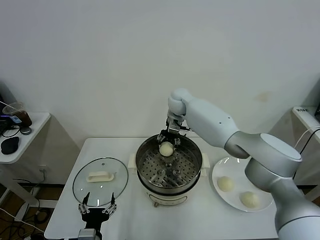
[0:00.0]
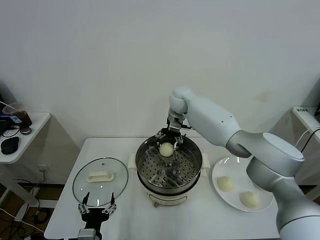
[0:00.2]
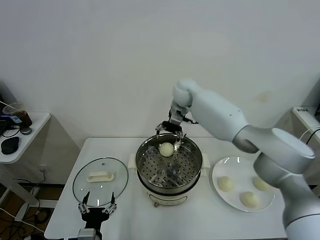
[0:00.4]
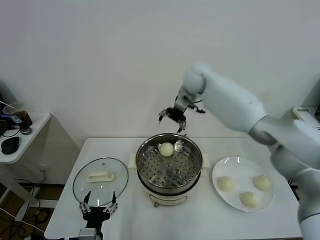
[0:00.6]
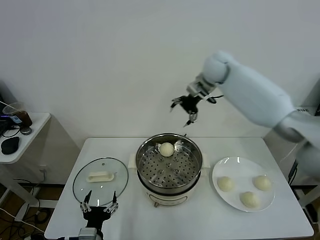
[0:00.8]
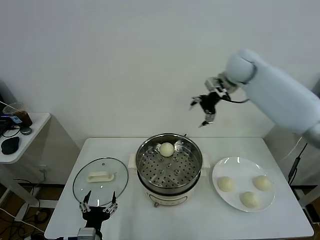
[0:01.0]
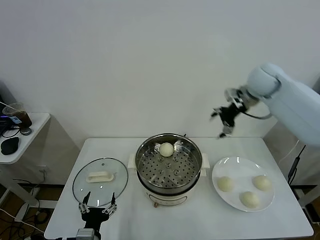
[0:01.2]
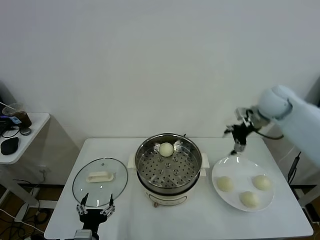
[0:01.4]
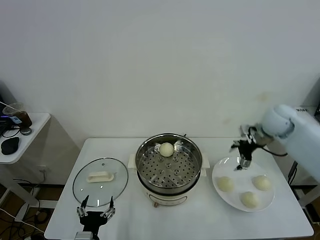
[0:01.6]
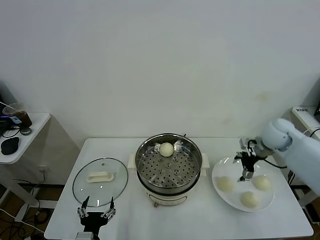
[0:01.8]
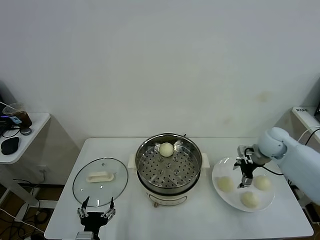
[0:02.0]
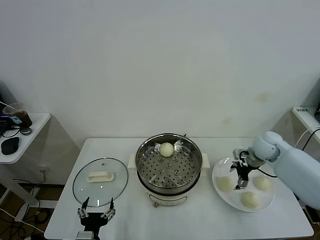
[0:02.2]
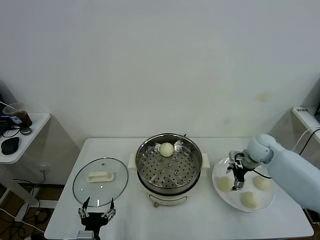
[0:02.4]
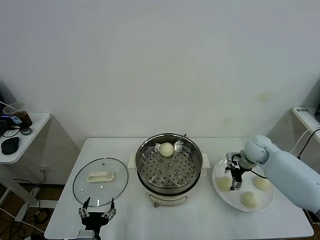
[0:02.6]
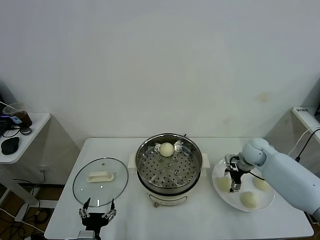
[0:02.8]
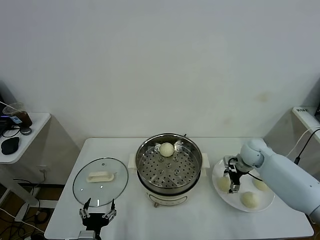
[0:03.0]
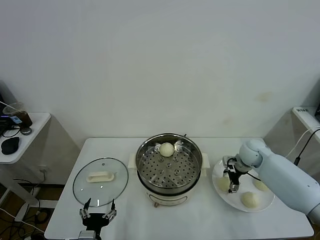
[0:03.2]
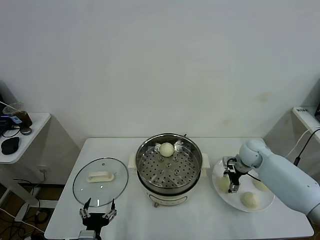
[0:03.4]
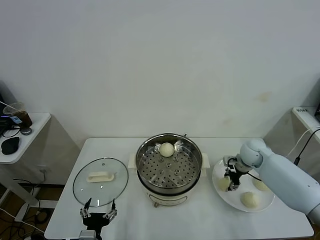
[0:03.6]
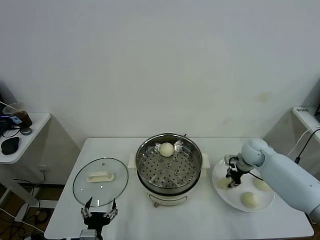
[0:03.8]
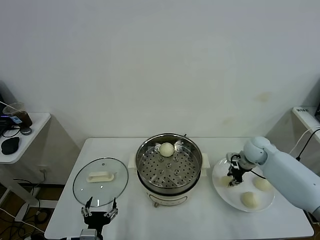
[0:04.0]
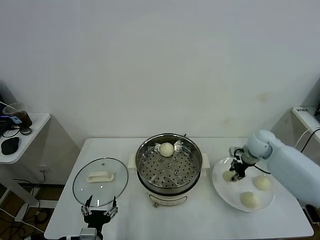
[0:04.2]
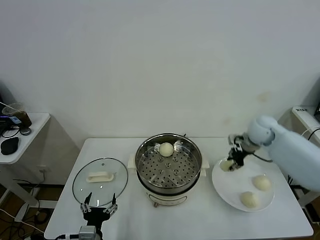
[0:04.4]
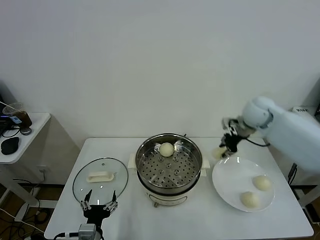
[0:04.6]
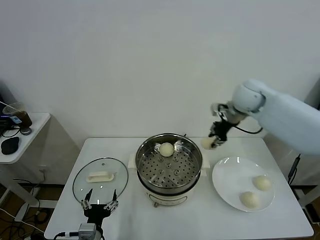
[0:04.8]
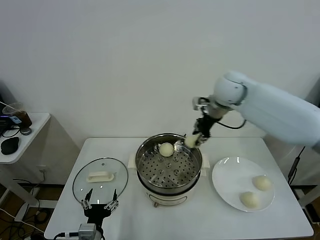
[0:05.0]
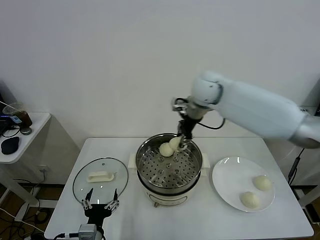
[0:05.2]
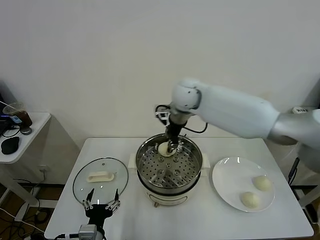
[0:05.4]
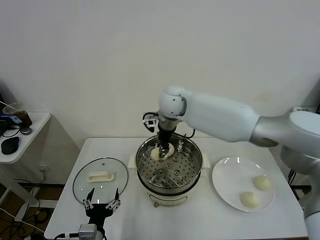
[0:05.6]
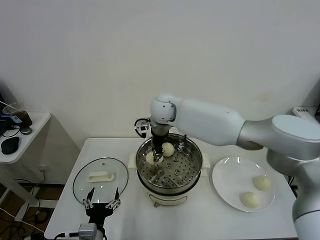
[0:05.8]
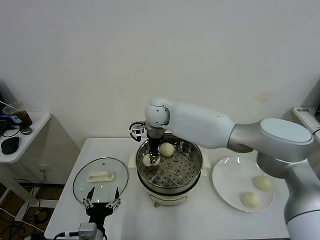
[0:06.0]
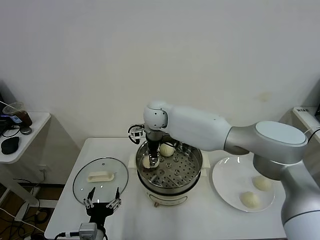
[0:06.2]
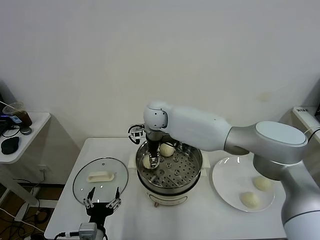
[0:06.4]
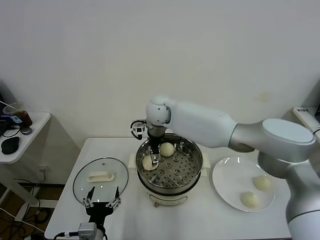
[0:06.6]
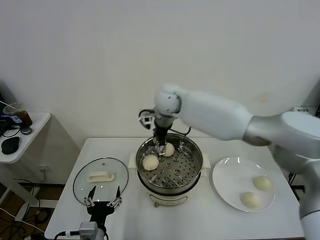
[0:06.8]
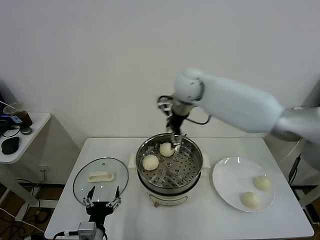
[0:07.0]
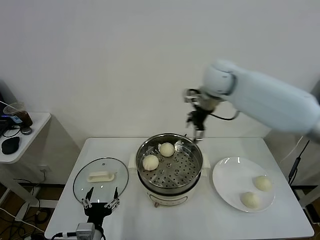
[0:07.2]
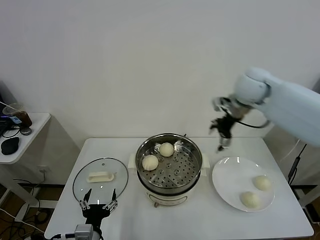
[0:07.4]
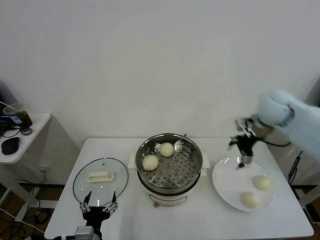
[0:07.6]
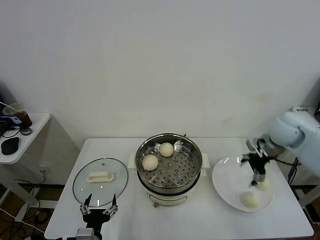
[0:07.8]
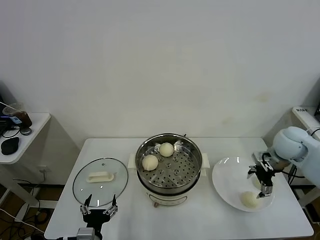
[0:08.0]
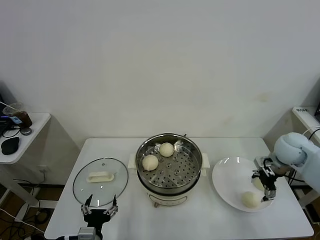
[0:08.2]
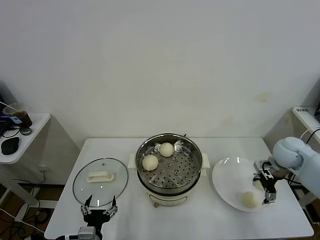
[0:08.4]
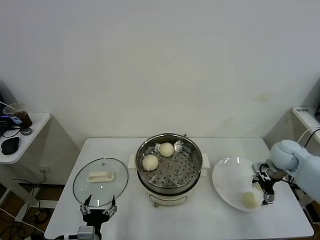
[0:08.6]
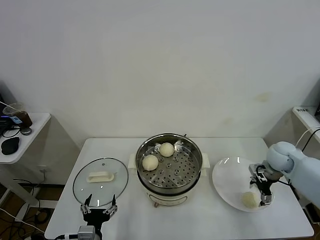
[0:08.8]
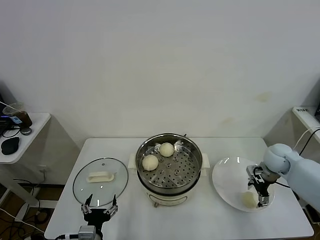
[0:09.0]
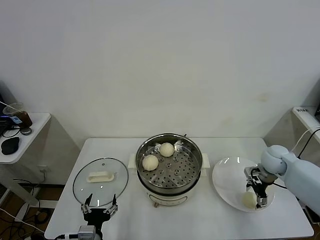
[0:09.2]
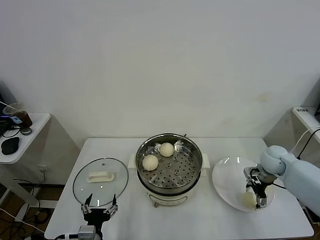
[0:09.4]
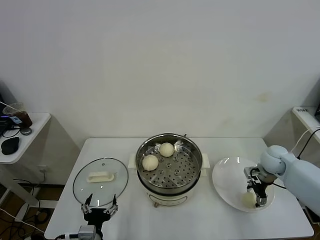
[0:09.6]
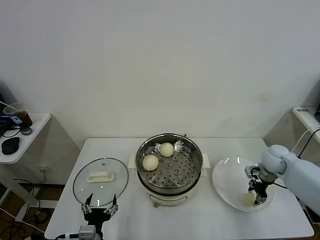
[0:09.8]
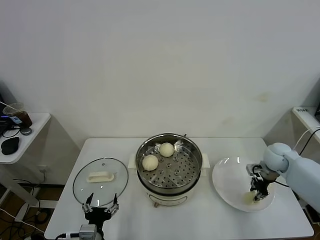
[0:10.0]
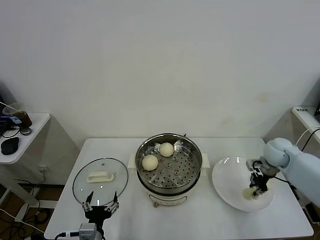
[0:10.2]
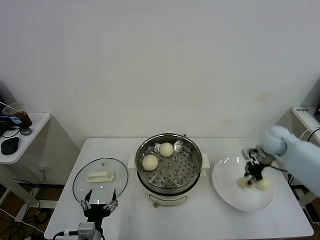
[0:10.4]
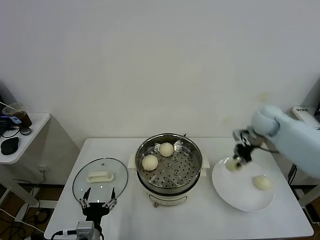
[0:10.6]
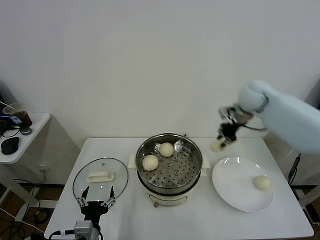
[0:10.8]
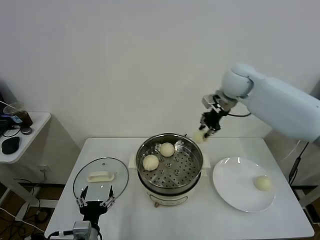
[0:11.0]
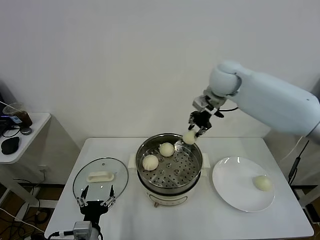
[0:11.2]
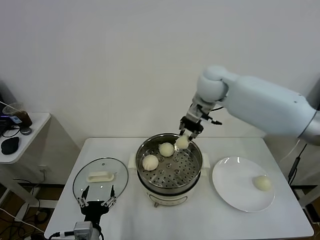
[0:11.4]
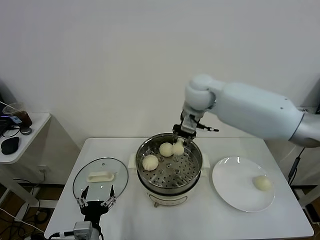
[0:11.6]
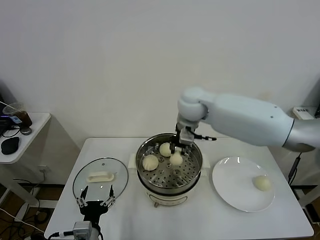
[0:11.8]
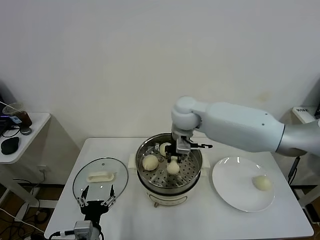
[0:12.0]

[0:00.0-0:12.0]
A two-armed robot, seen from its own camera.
Task of the whole recording: take steamed baozi put them in steamer.
Step, 0:00.4 to 0:03.6: Grasp the baozi in the plate with right gripper.
Step, 0:04.0 to 0:06.6: Place the baozi on the steamer with right gripper.
Step, 0:06.8 to 0:10.0: Grasp the baozi in the plate with right gripper.
0:00.0 to 0:01.6: The right gripper goes some 35 cm to the right and backward.
0:01.6 to 0:03.0: The right gripper is displaced downward by about 15 cm.
0:03.0 to 0:04.4: The right gripper is displaced upward by roughly 15 cm, and closes its fingers.
0:04.4 to 0:06.0: The right gripper goes about 35 cm to the left.
0:06.0 to 0:07.6: The right gripper travels to the right by approximately 35 cm, and opens up.
0:07.6 to 0:09.0: The right gripper shifts roughly 15 cm downward.
0:09.0 to 0:10.4: The right gripper travels upward and forward by roughly 10 cm, and closes up.
0:10.4 to 0:12.0: The right gripper moves to the left, roughly 30 cm.

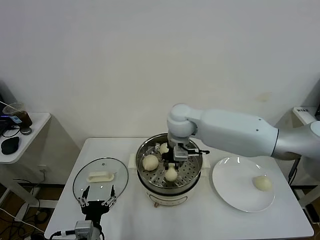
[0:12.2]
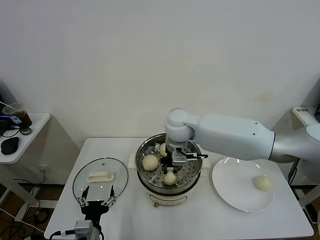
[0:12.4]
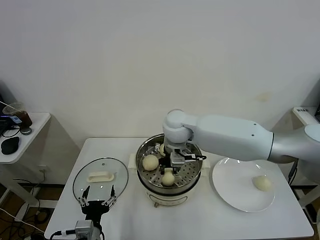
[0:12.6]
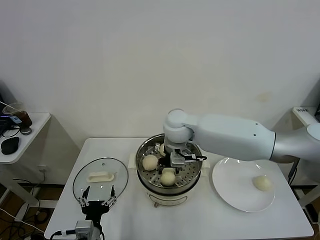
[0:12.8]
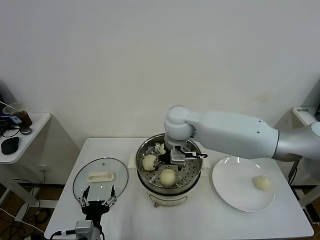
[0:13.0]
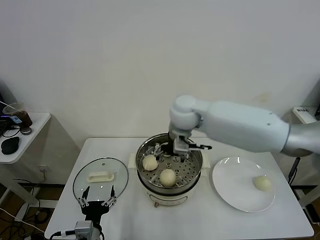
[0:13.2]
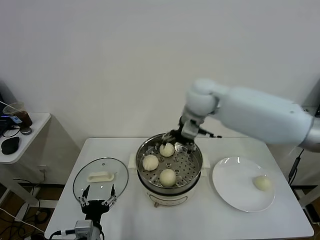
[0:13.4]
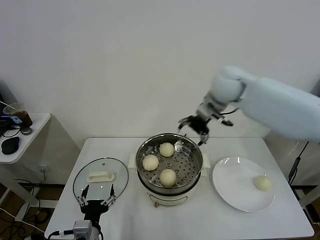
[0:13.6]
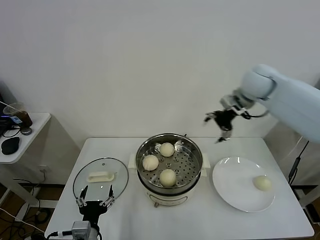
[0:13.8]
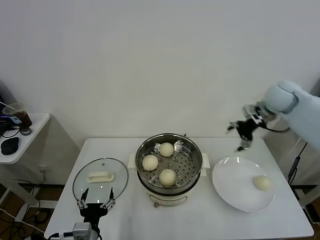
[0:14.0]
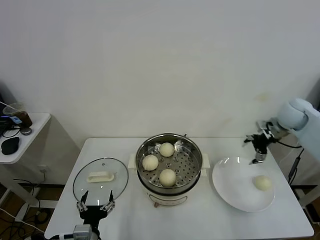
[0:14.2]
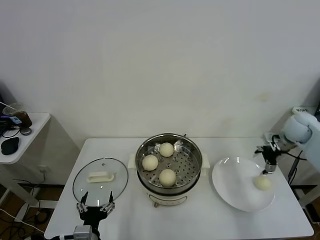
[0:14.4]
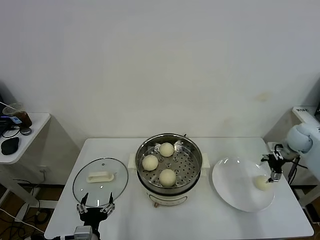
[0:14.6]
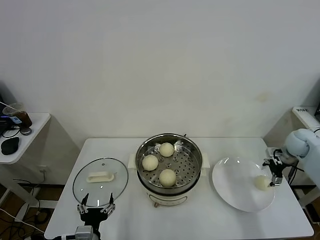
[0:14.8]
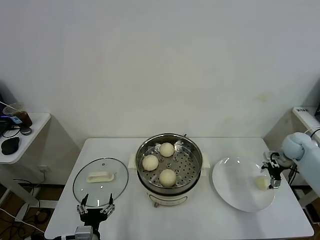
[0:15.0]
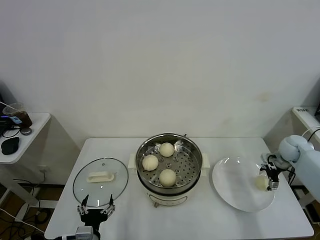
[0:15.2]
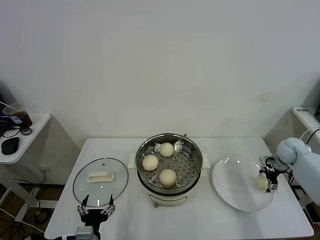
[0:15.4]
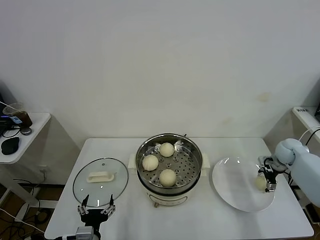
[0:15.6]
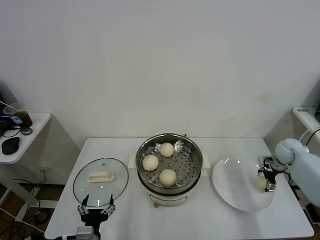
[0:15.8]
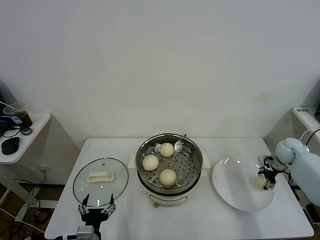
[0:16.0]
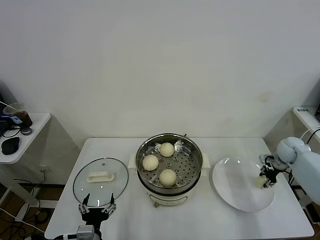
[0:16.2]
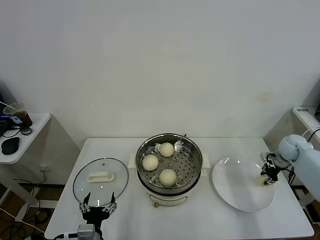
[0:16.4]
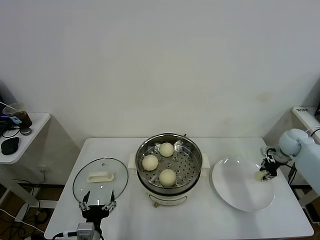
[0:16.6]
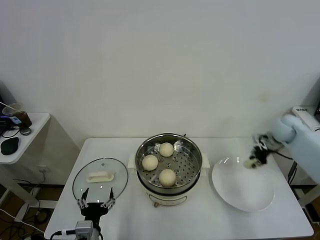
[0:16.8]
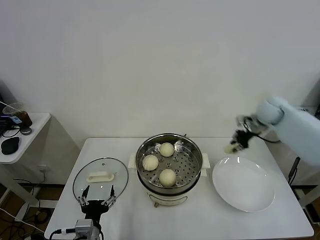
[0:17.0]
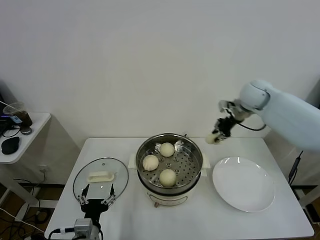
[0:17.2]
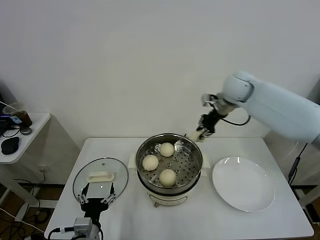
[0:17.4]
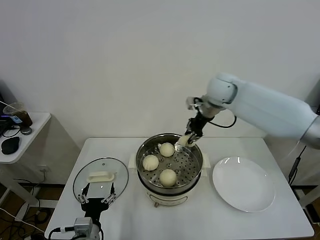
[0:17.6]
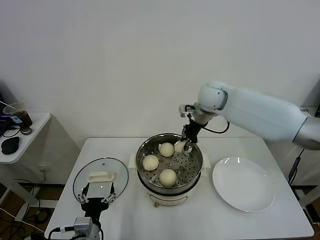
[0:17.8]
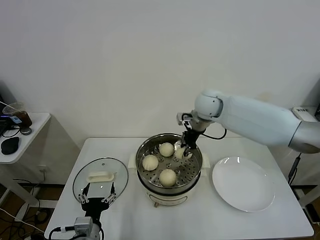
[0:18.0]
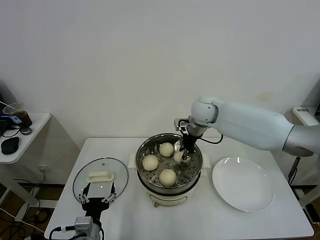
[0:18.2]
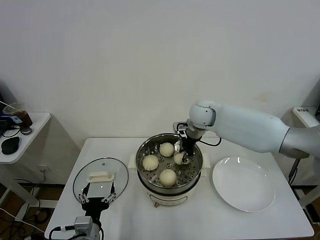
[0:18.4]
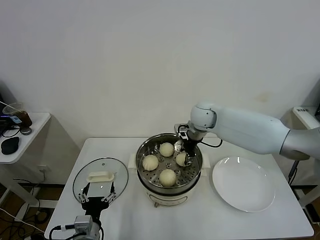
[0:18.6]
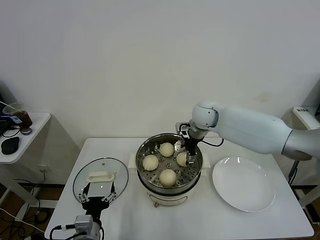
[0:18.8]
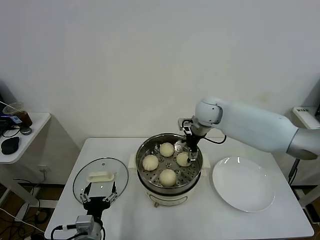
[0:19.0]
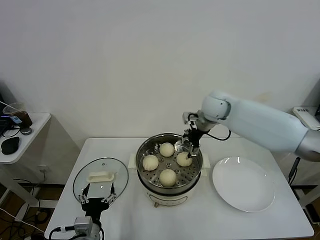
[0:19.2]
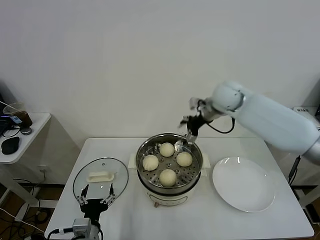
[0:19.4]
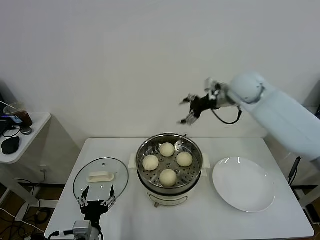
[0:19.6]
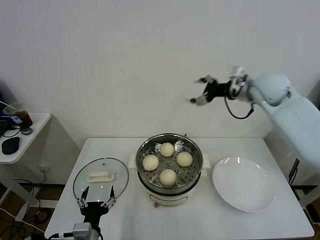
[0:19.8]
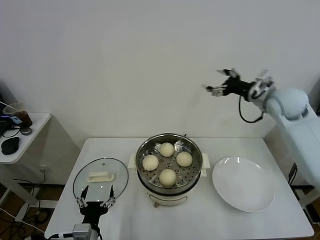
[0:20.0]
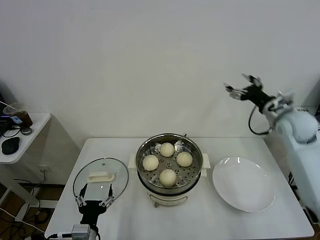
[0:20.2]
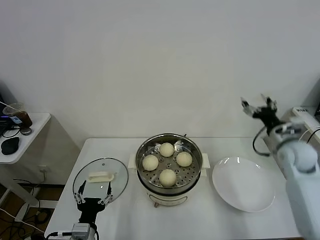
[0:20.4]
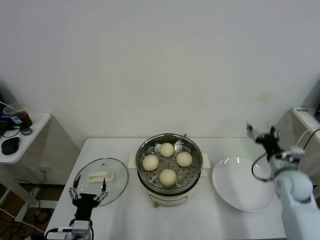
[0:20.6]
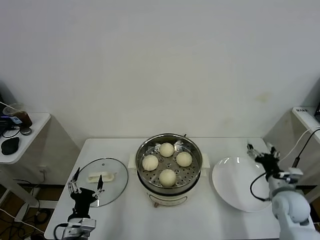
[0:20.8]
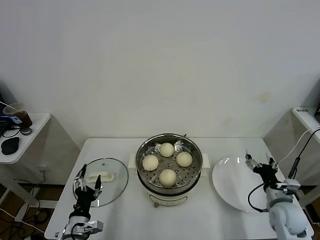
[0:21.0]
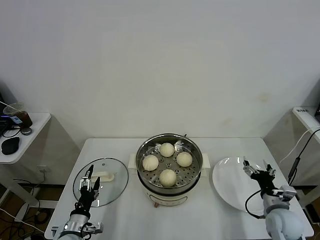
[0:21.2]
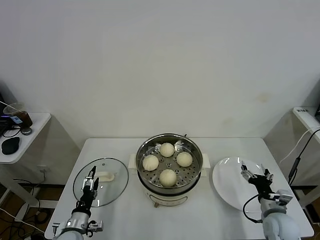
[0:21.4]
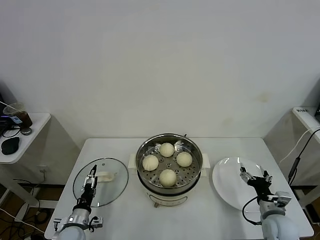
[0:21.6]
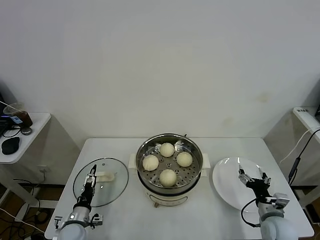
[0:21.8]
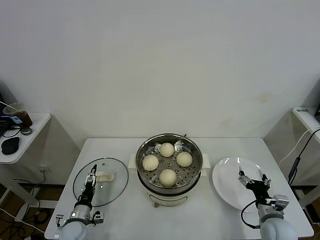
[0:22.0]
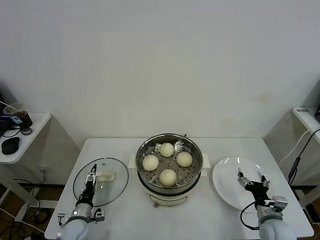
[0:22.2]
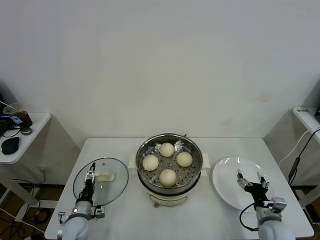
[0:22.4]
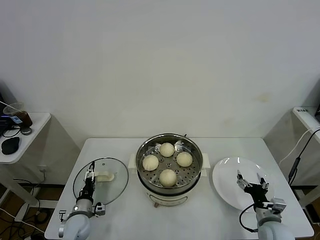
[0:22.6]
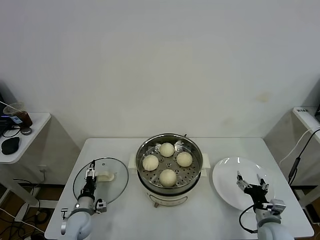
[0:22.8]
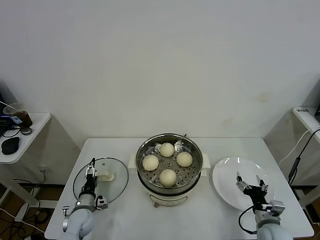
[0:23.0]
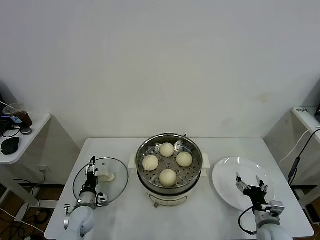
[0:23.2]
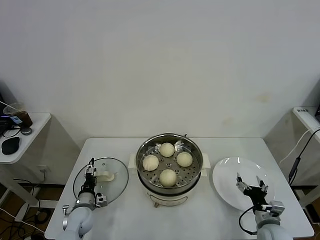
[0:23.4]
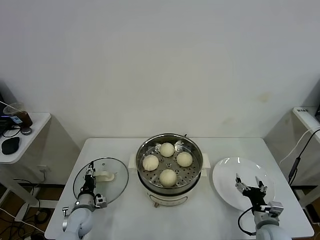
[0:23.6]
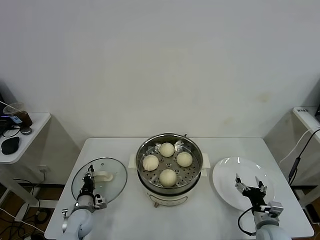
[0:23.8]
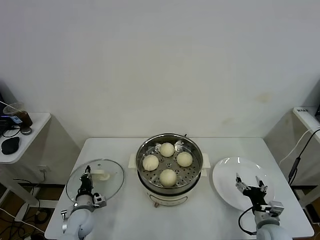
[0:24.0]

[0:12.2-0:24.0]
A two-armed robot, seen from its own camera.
Task of the whole recording: take steamed baozi put them in steamer.
Step, 0:13.2 to 0:16.4: Grasp the baozi in the plate with right gripper.
Step, 0:16.6 to 0:19.0: Place the baozi on the steamer with right gripper.
0:12.2 to 0:13.6: The right gripper is displaced to the right and upward by about 20 cm, and opens.
0:13.6 to 0:15.2: The right gripper is displaced to the right and downward by approximately 40 cm.
0:15.2 to 0:16.6: The right gripper closes.
0:16.6 to 0:18.2: The right gripper travels to the left by roughly 35 cm.
0:18.2 to 0:19.6: The right gripper shifts roughly 15 cm to the right and upward, and opens its fingers.
0:19.6 to 0:21.0: The right gripper shifts roughly 40 cm downward, backward and to the right. The left gripper shifts roughly 10 cm to the left and downward.
0:21.0 to 0:22.6: The right gripper is displaced downward by approximately 5 cm, while the left gripper moves forward and downward, roughly 15 cm.
0:22.6 to 0:24.0: The left gripper closes up.
